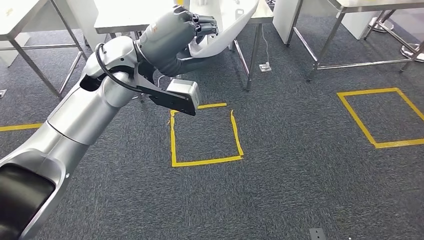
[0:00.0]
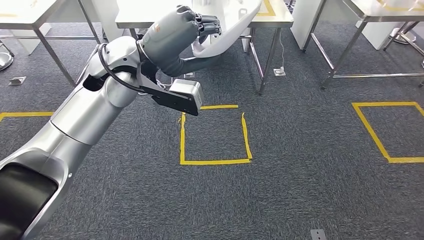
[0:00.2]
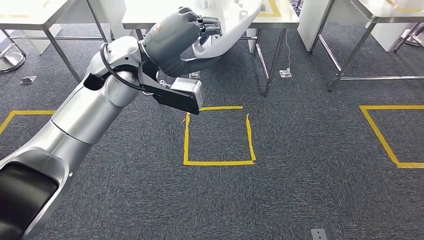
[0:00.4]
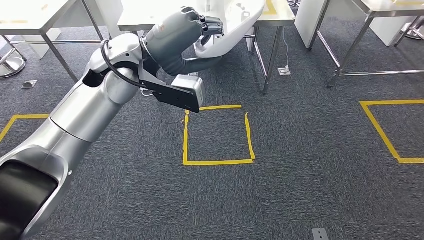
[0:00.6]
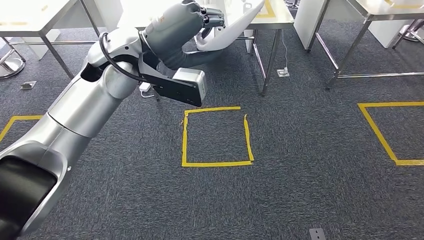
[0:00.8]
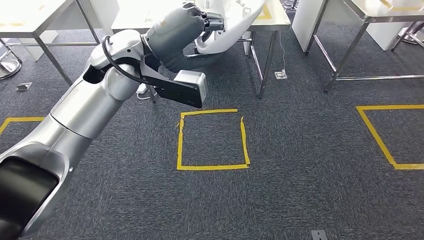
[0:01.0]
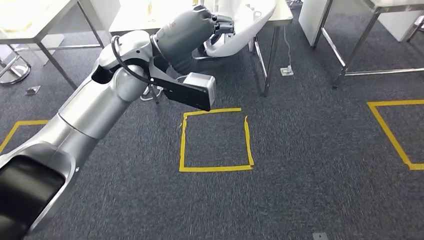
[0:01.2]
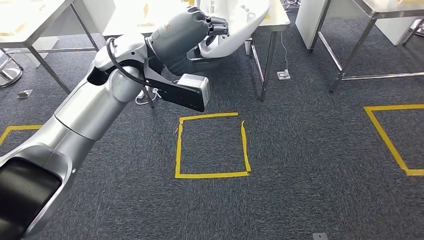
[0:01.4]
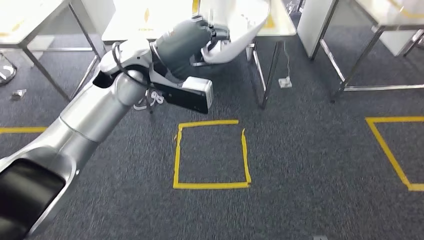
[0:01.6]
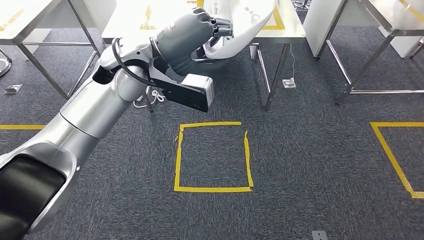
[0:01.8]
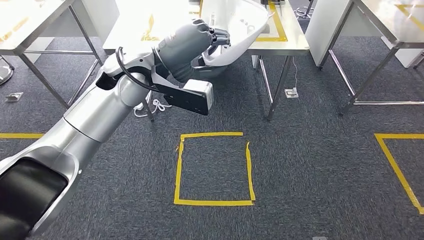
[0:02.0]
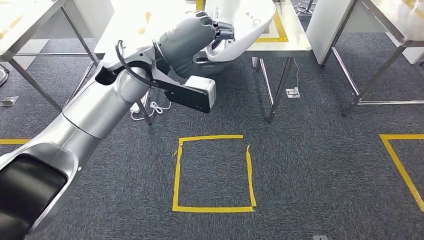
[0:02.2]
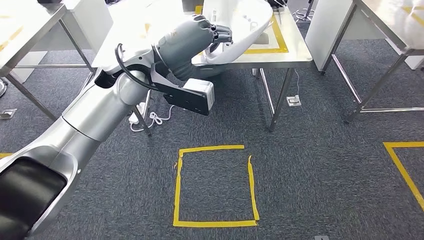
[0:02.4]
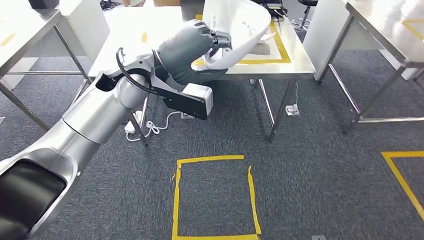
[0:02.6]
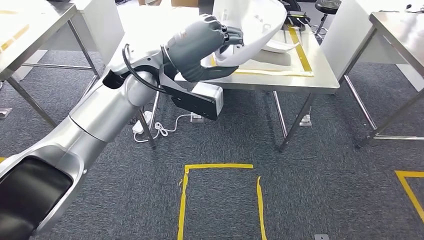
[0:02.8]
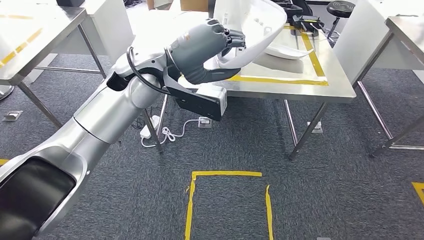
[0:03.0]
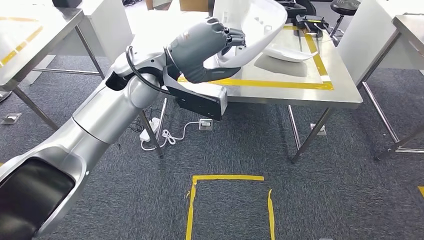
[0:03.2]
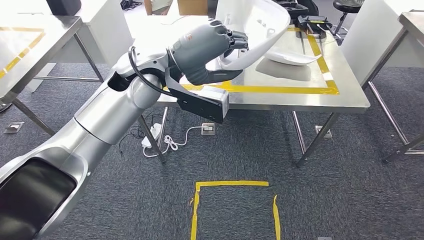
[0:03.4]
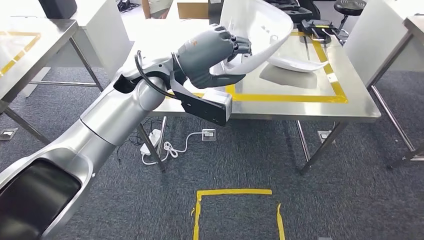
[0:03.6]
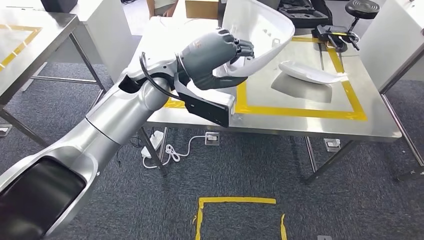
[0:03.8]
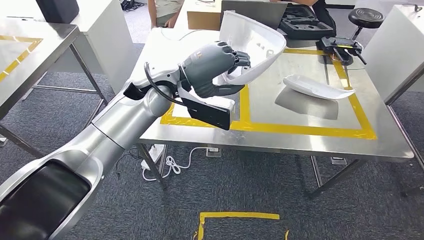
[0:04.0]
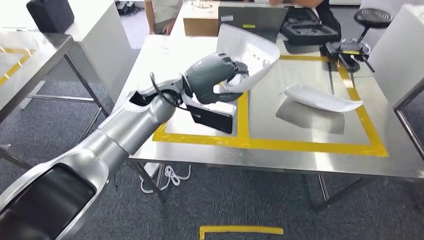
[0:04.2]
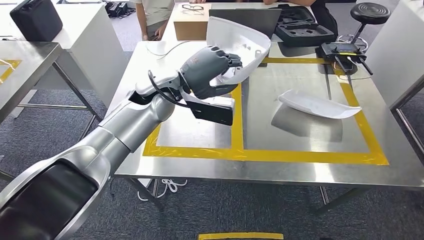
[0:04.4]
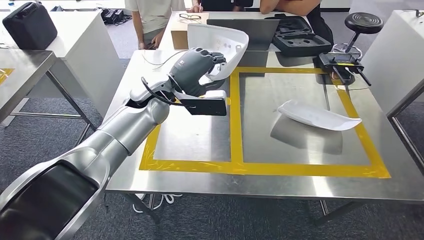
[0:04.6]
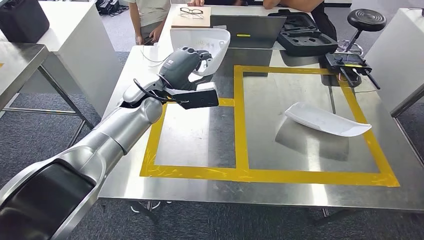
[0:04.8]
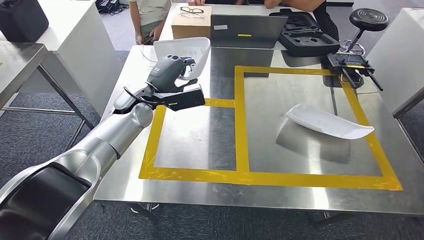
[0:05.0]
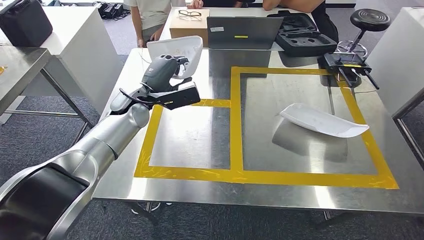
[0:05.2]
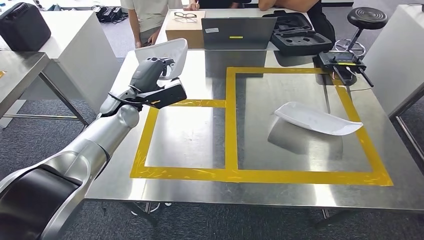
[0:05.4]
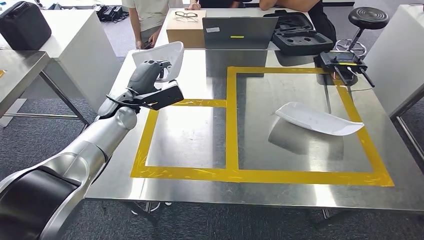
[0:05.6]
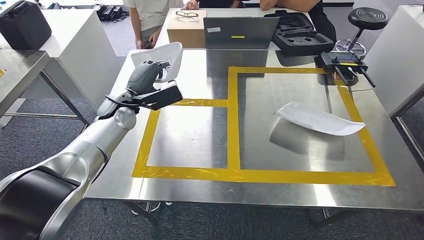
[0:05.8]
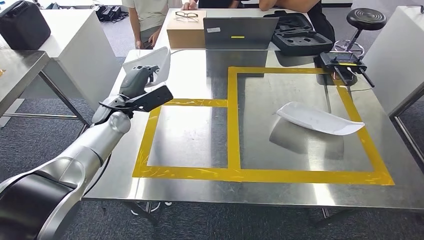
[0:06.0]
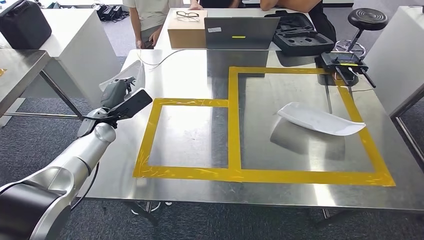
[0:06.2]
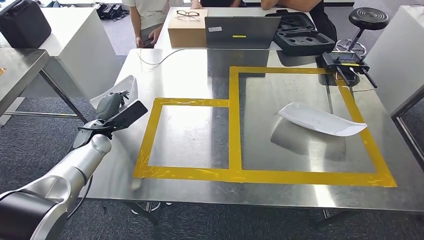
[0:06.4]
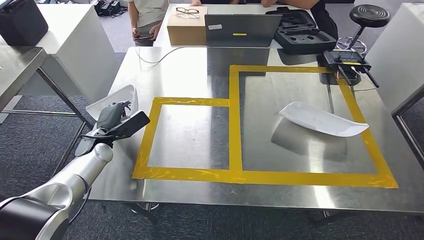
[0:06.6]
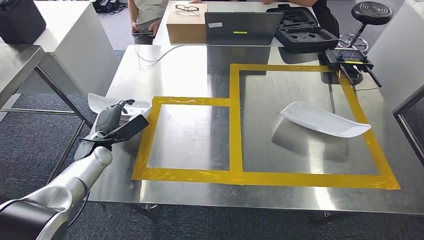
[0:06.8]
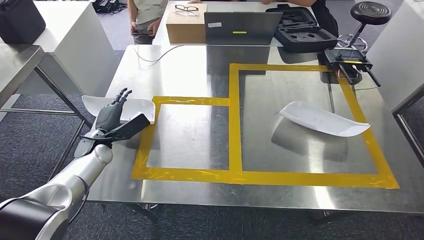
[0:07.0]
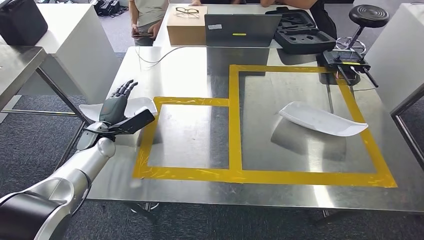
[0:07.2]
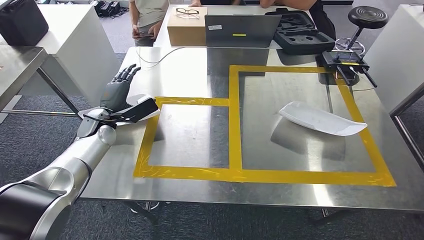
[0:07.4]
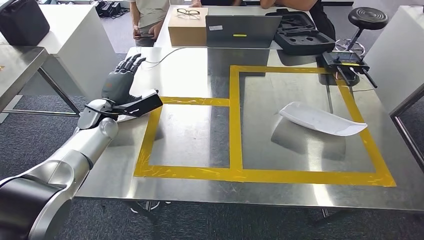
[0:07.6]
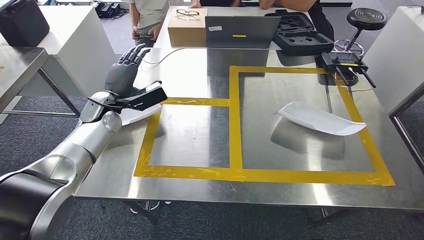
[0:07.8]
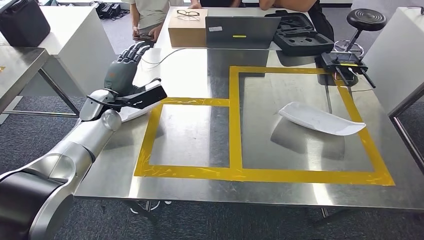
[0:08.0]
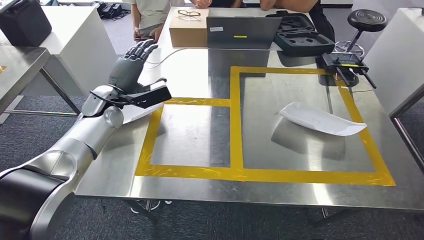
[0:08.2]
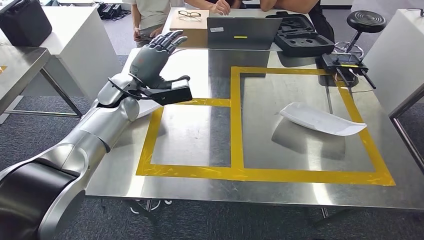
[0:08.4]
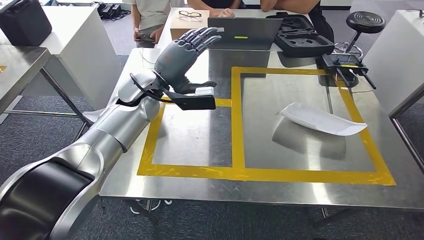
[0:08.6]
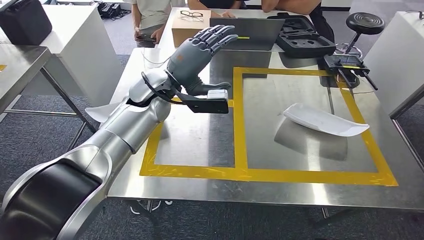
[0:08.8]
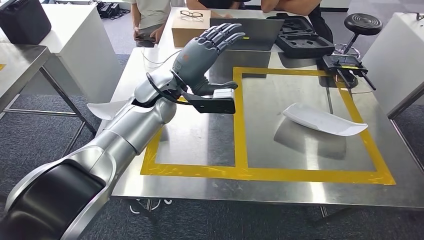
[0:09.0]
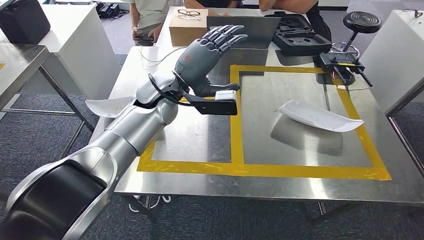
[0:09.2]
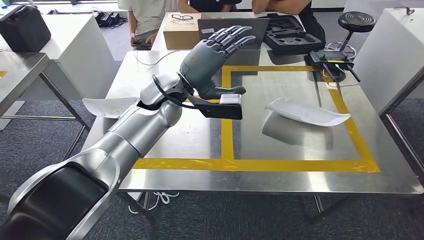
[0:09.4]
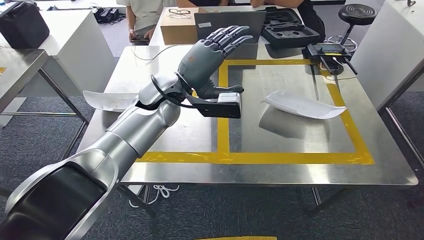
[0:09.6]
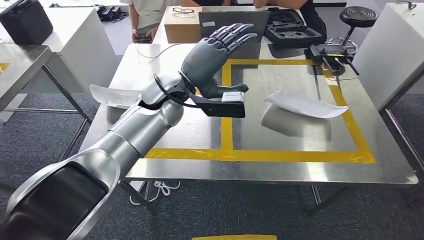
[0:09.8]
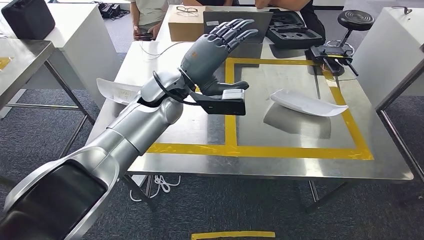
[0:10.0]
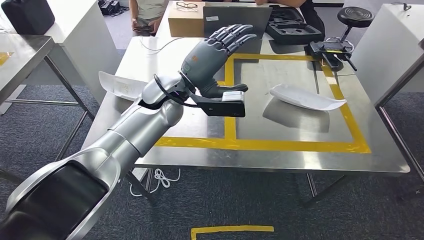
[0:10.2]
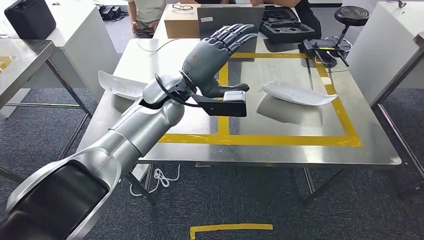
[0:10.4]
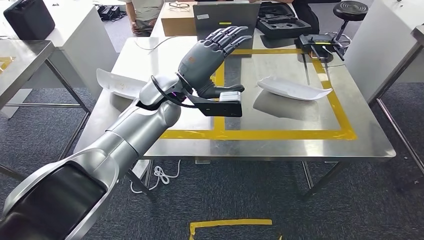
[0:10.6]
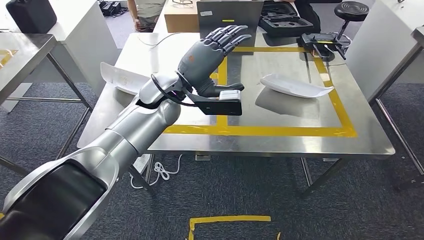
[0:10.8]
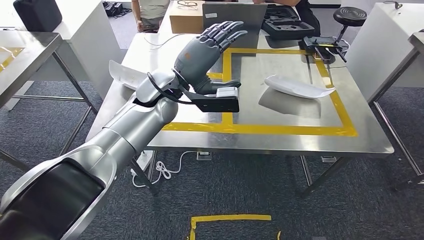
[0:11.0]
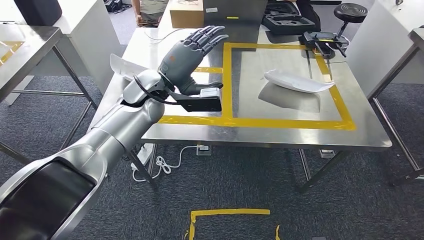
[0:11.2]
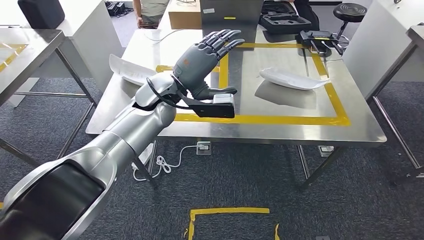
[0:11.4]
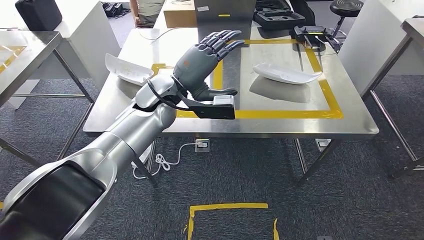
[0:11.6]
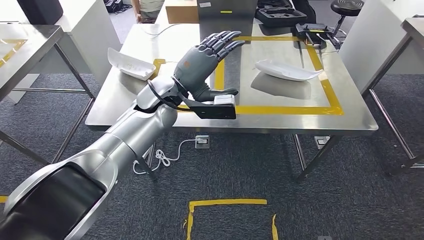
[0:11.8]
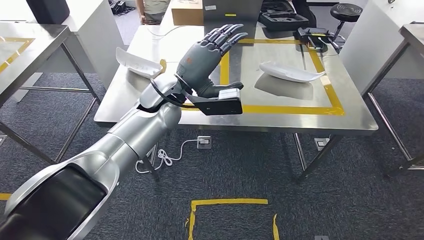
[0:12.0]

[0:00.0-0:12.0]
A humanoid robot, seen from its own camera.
Step, 0:02.0 to 0:10.0: Insert the small component into the corresponding slot on the workbench.

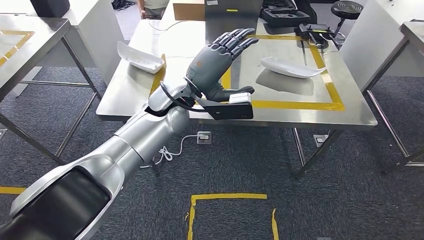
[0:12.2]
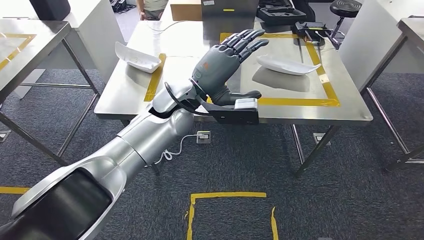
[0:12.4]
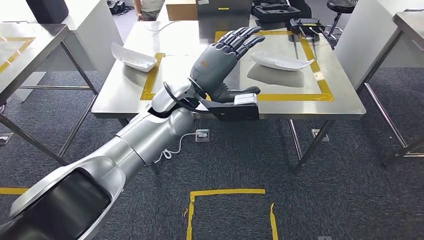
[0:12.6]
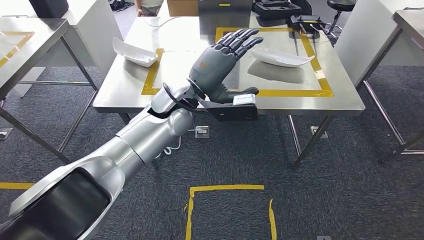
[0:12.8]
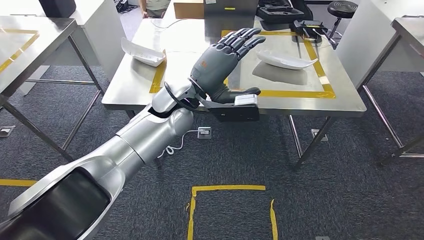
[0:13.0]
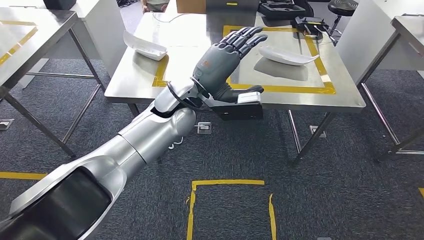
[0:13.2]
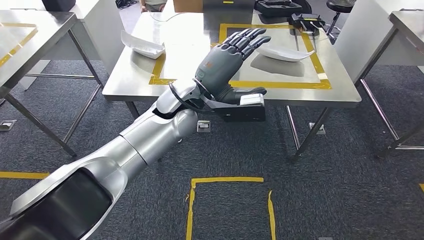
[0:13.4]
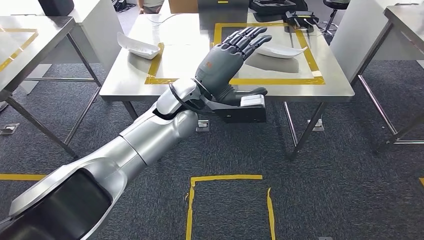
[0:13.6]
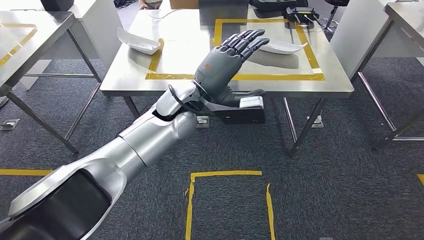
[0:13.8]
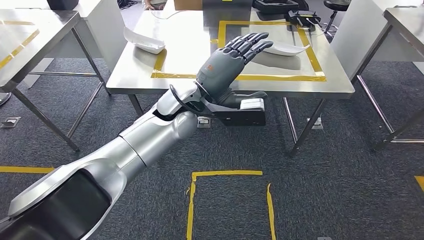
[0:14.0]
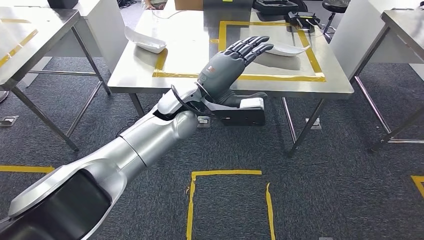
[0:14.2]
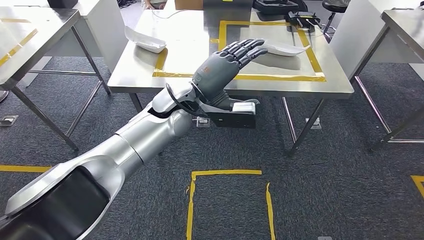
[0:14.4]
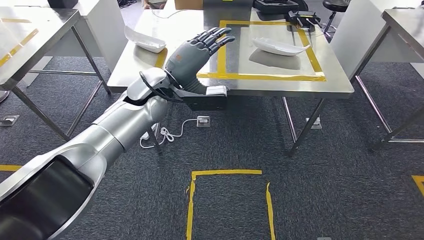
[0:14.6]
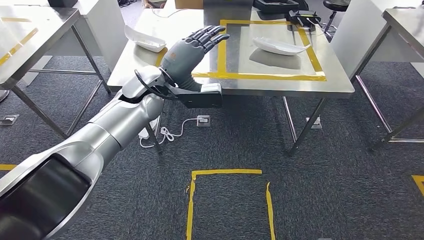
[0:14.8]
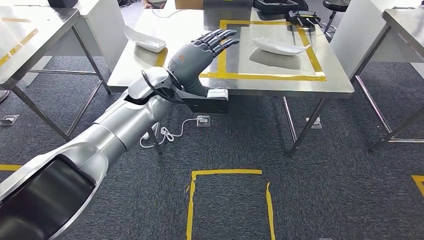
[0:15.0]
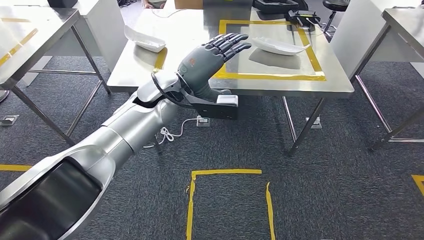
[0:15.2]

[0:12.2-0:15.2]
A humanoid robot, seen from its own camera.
Step, 0:12.2 to 0:15.2: Return to the initial position at the workbench.
